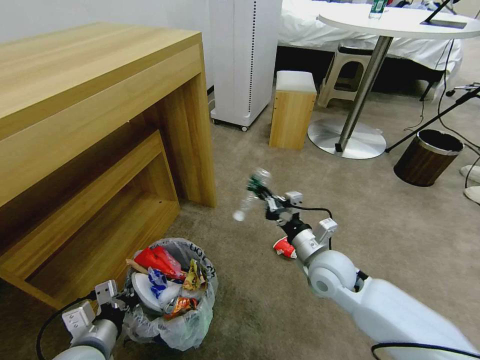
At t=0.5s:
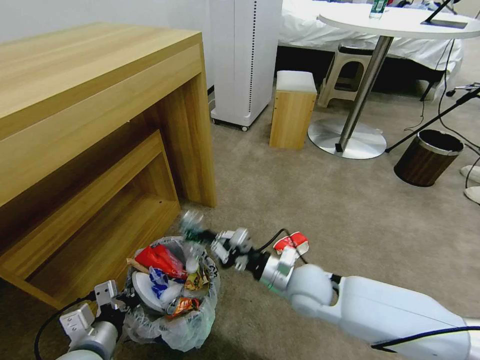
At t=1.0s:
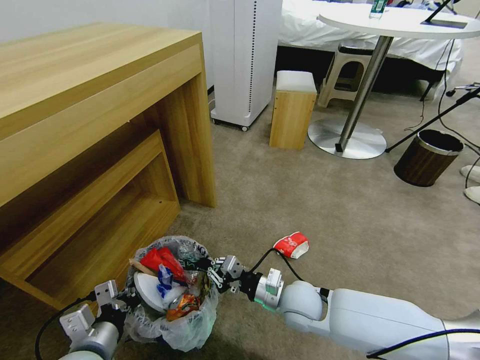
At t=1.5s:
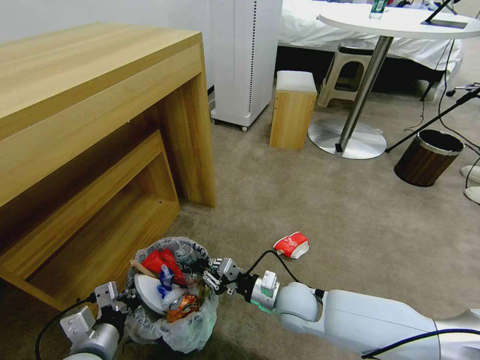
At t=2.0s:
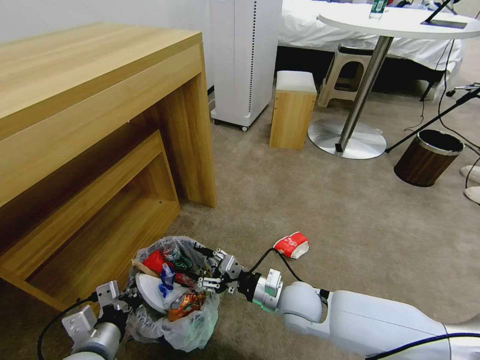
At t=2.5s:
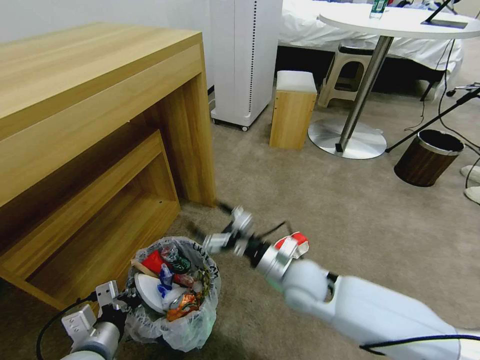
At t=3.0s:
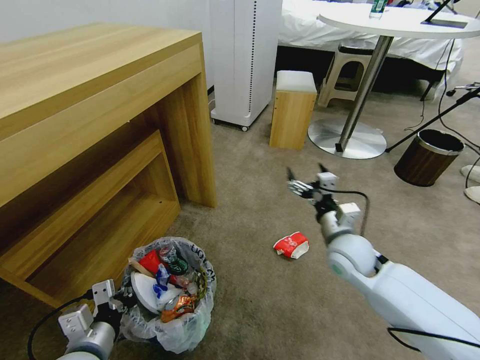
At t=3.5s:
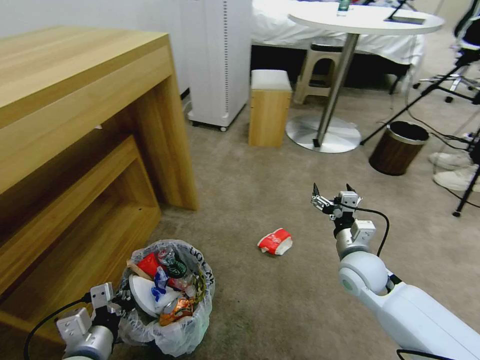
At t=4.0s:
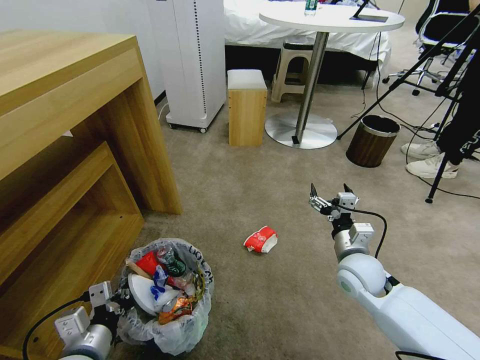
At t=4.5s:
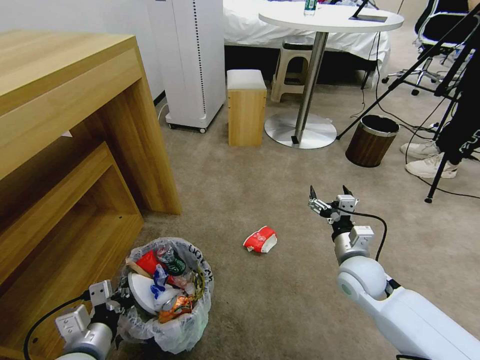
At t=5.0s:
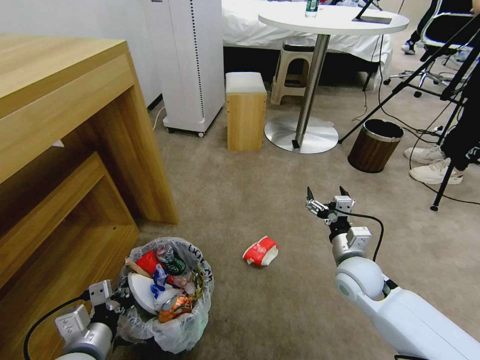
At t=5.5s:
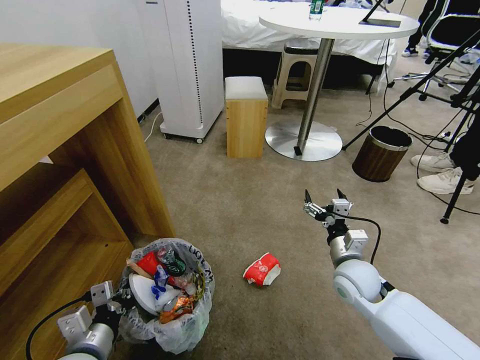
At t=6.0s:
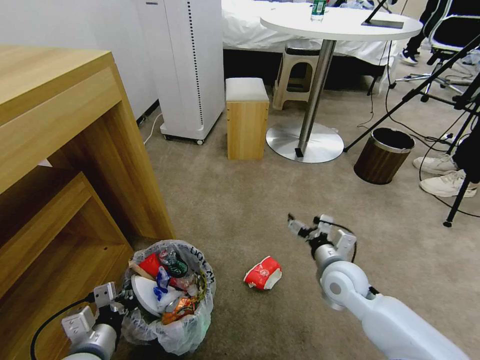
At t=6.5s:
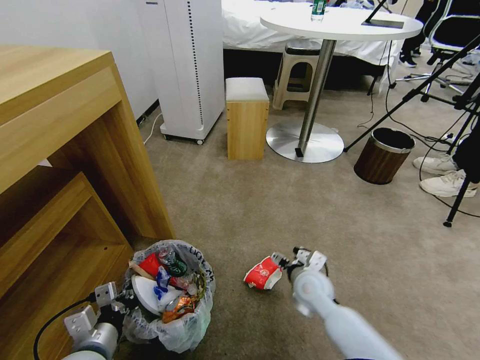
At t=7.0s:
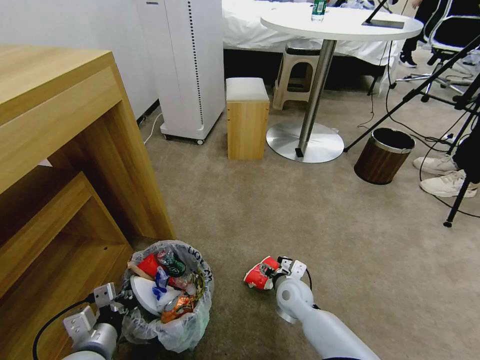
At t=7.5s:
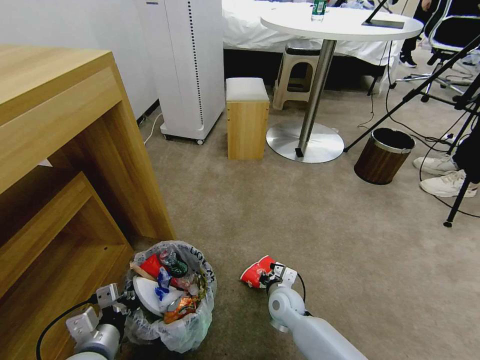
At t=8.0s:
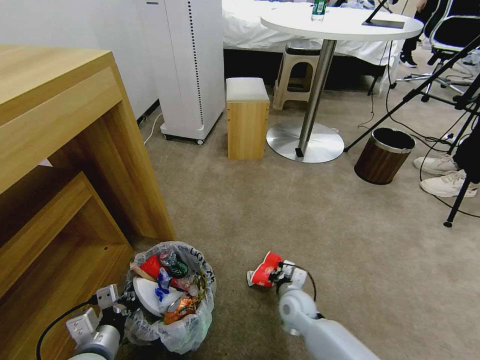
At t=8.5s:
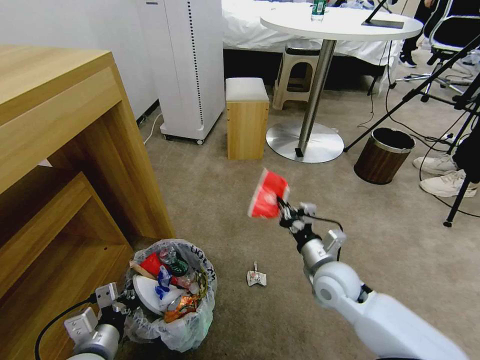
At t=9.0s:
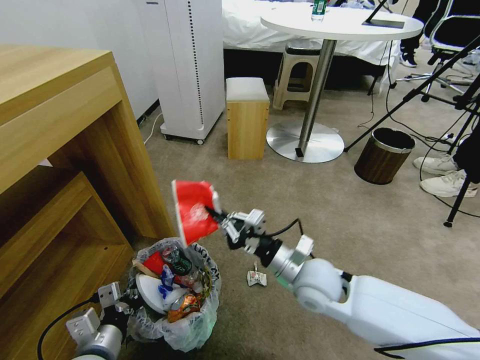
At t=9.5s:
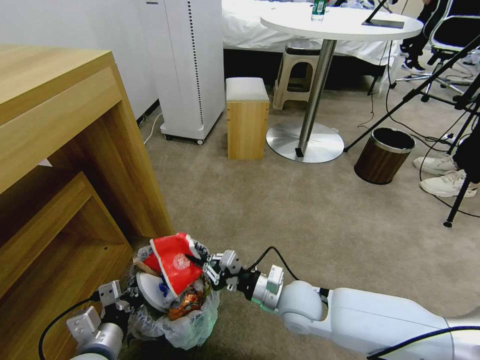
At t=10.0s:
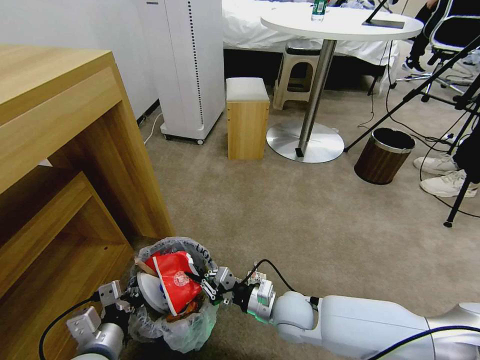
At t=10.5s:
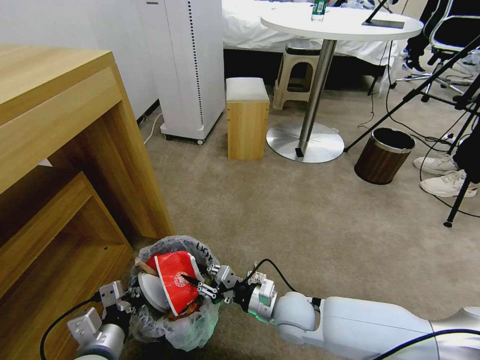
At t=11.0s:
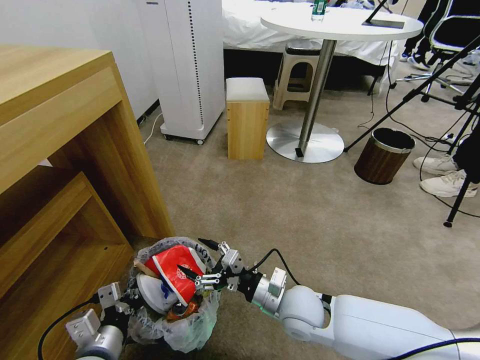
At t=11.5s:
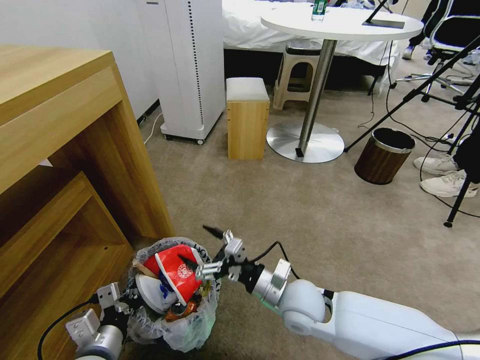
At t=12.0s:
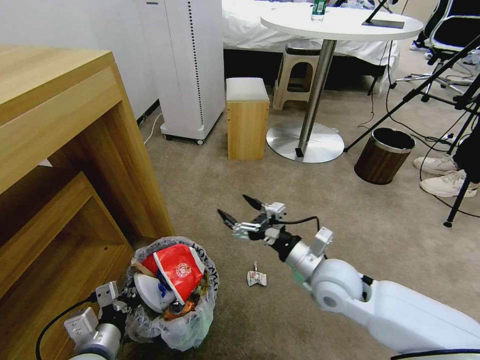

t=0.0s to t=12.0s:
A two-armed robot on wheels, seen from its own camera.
Task of the whole recording: Pick up the trash bin and place the garbage on the floor into it.
t=0.0s to t=2.0s: The right gripper moves downward and to the left, about 10 cm, and opens its fingers.
t=2.0s to t=4.0s: The right gripper heads to the right, covering roughly 15 cm, and opens up.
t=6.0s to t=8.0s: The right gripper is displaced downward and to the left by roughly 20 cm, and closes up.
t=8.0s to t=10.0s: The right gripper is displaced upward by about 10 cm.
t=10.0s to t=12.0s: The right gripper moves upward and to the right, about 15 cm, and opens up.

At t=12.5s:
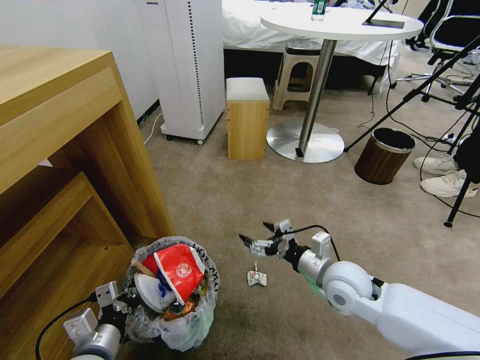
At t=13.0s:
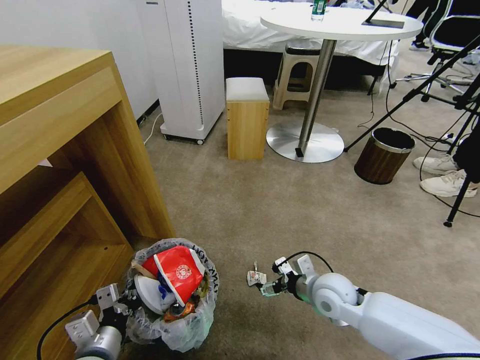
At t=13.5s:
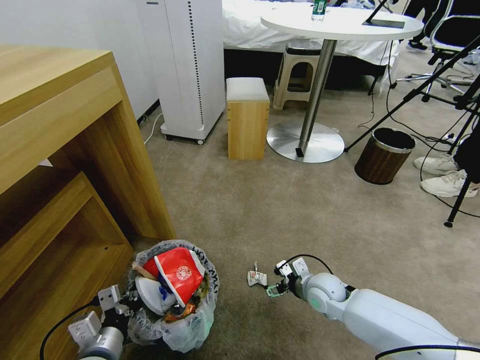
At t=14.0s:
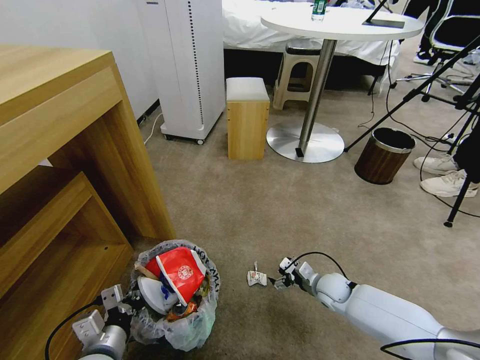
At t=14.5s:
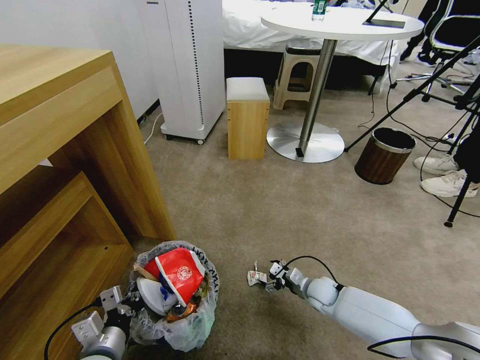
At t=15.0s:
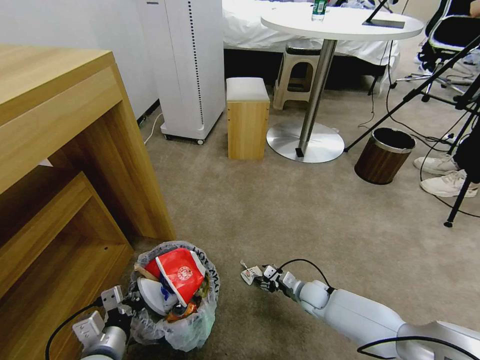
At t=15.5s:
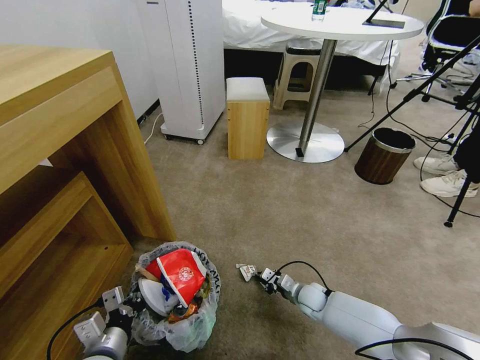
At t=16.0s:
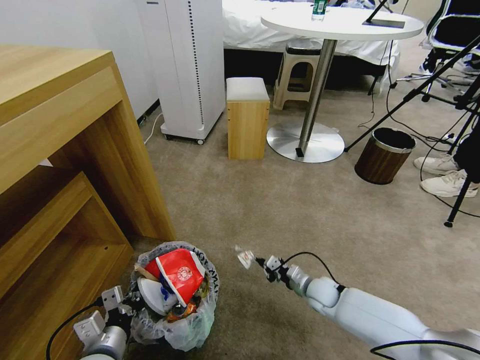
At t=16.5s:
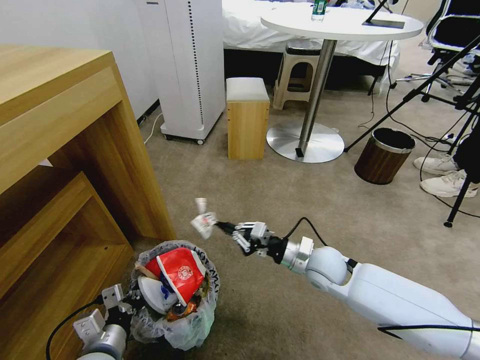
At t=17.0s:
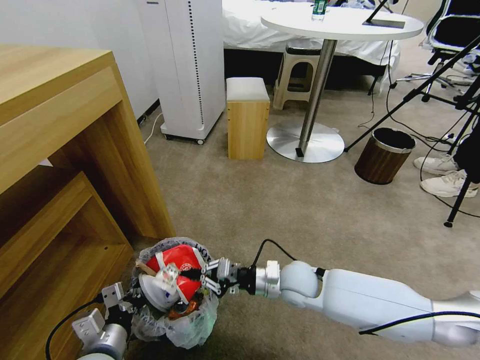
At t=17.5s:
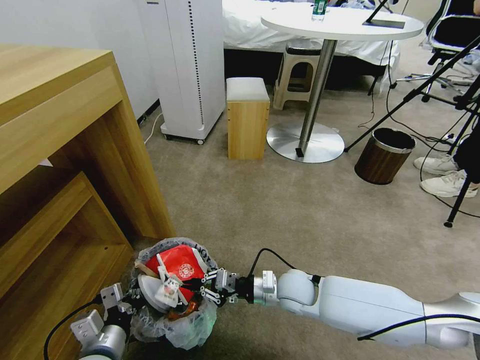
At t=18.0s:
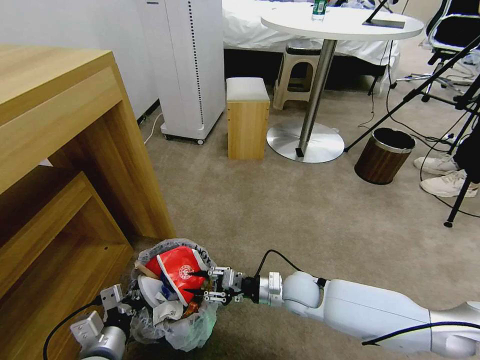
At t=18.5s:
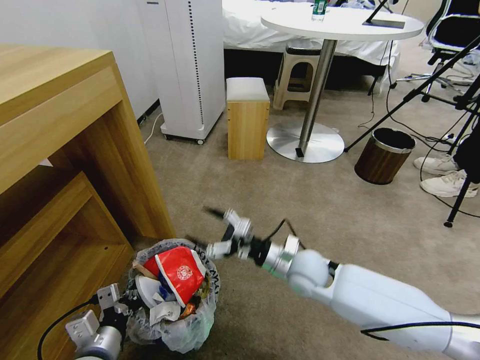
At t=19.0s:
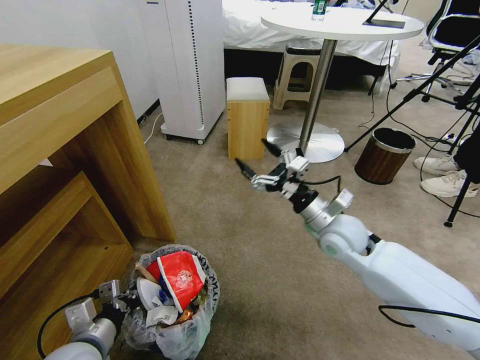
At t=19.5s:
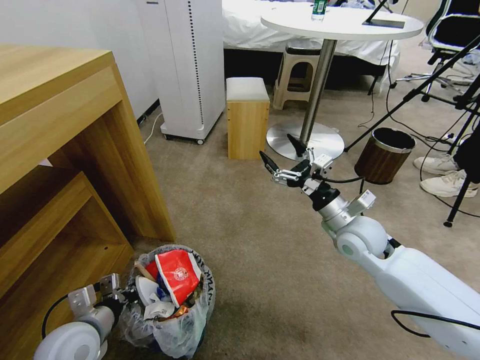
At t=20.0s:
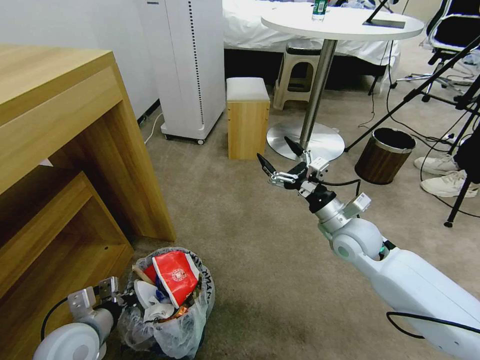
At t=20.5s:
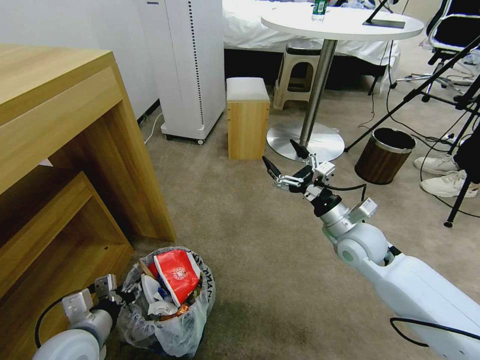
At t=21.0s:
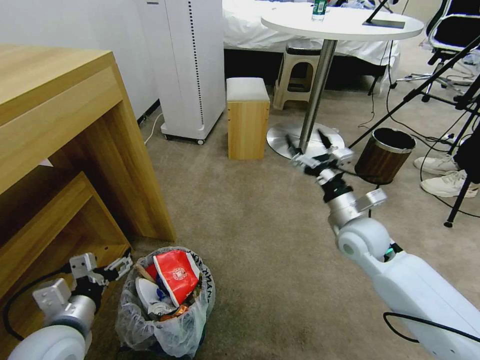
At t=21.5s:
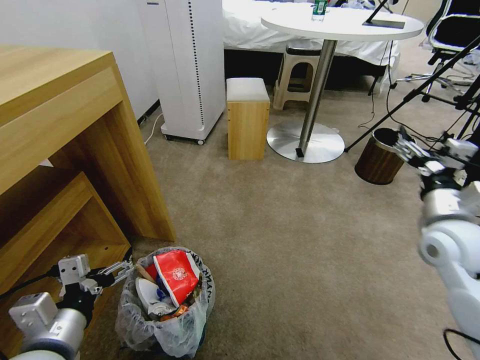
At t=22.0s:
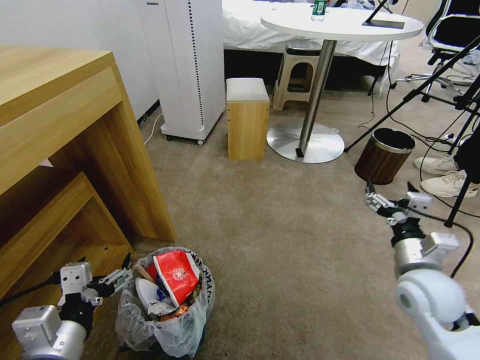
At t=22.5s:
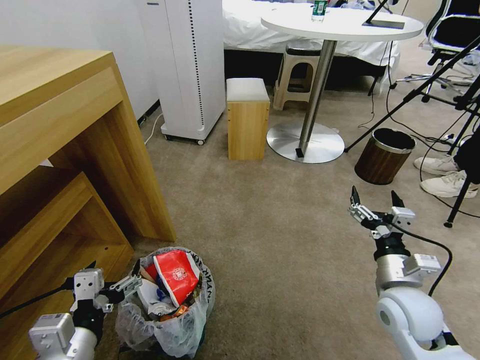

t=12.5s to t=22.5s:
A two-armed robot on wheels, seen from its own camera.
Task of the whole recording: Pick up the trash bin and place the garbage on the floor into it.
t=12.5s to t=14.5s: The right gripper goes approximately 20 cm downward.
t=14.5s to t=16.5s: The right gripper heads upward, covering some 20 cm, and closes.
t=16.5s to t=18.5s: The right gripper reaches about 5 cm downward, then returns, and opens up.
t=18.5s to t=20.5s: The left gripper ends up about 5 cm from where it was, and opens up; the right gripper moves to the right and upward, about 15 cm.
t=20.5s to t=22.5s: The right gripper is displaced backward and to the right by about 15 cm; the left gripper travels upward and backward by about 10 cm, and opens.
